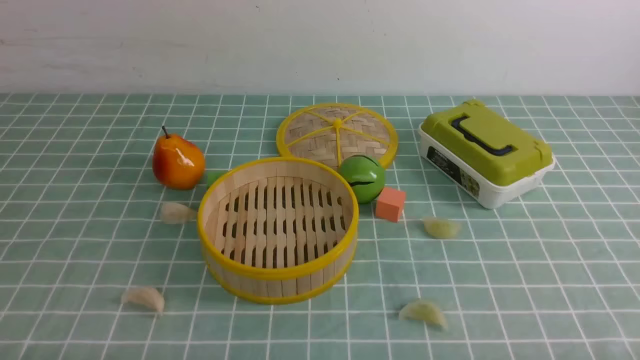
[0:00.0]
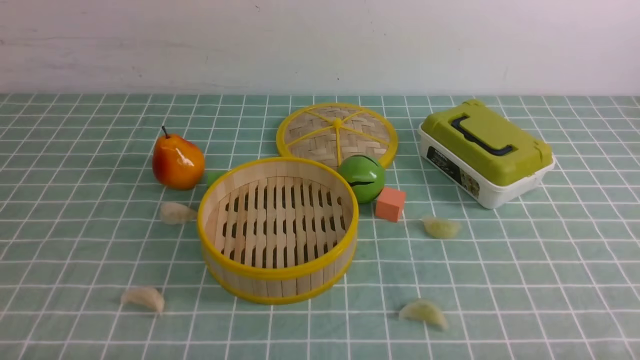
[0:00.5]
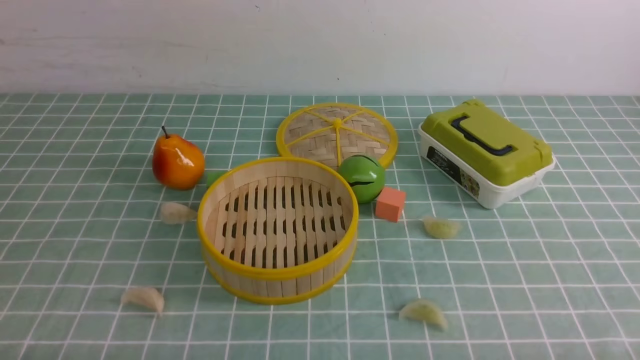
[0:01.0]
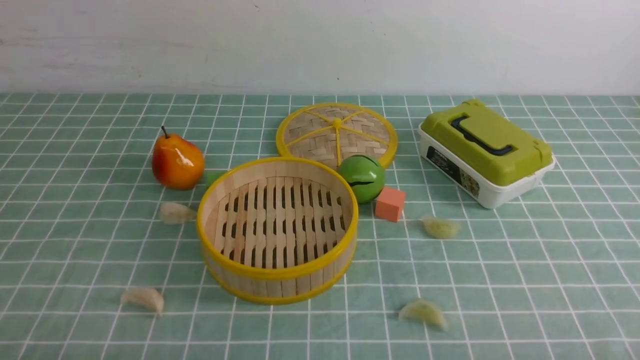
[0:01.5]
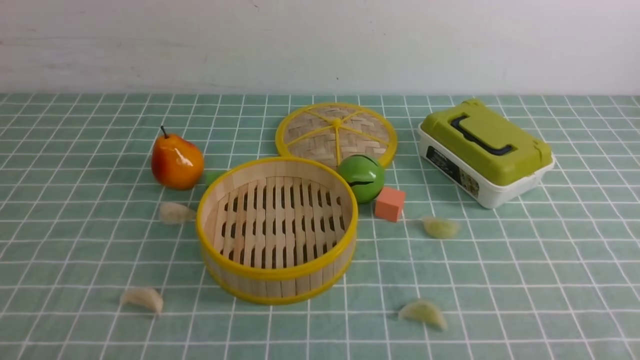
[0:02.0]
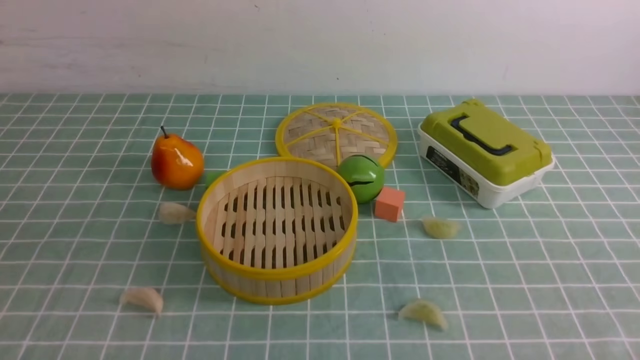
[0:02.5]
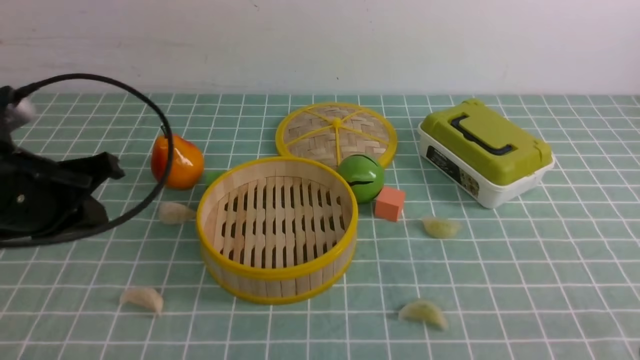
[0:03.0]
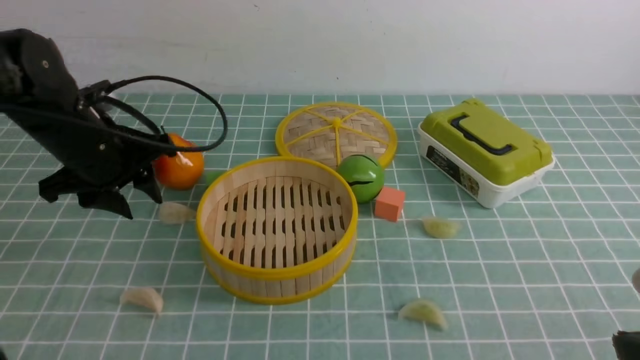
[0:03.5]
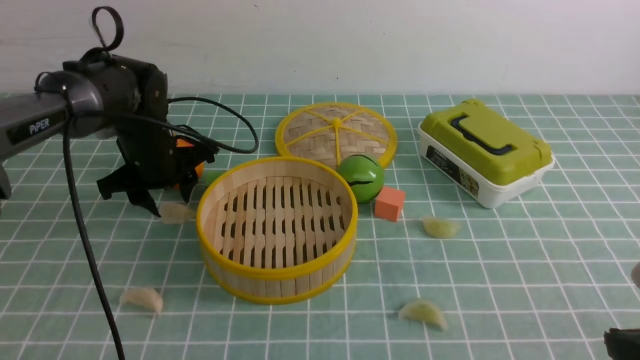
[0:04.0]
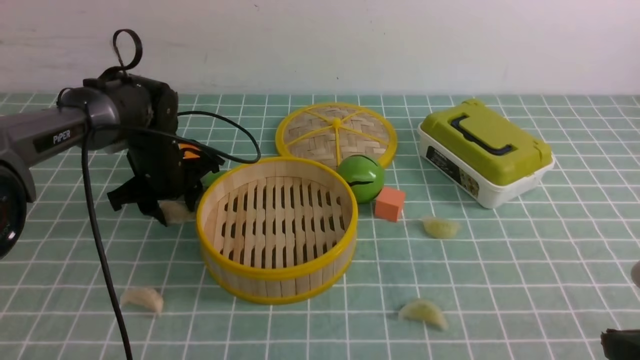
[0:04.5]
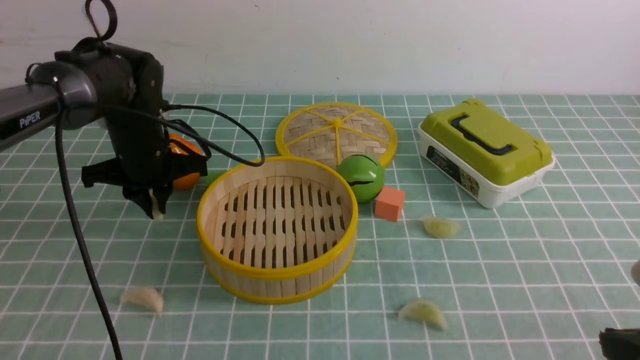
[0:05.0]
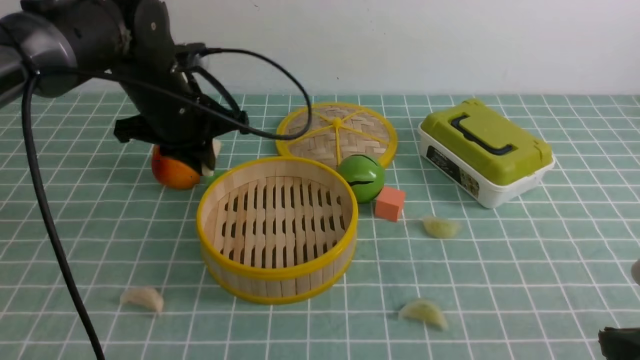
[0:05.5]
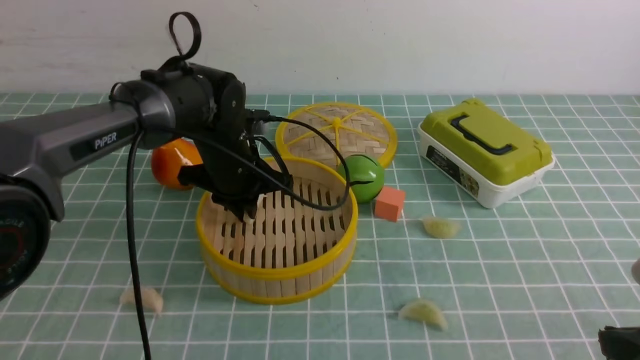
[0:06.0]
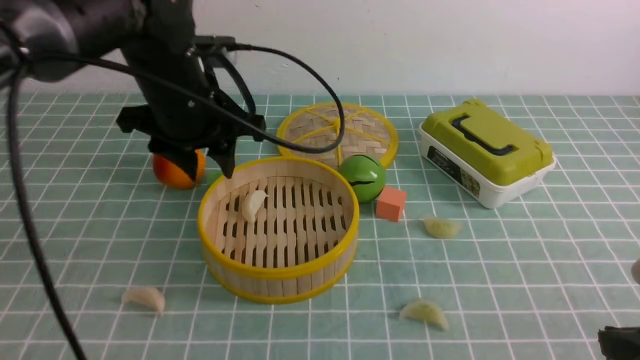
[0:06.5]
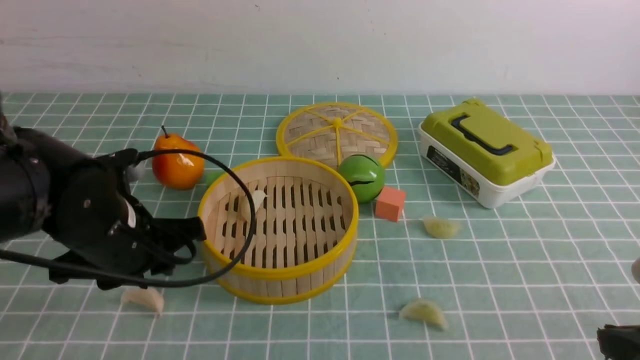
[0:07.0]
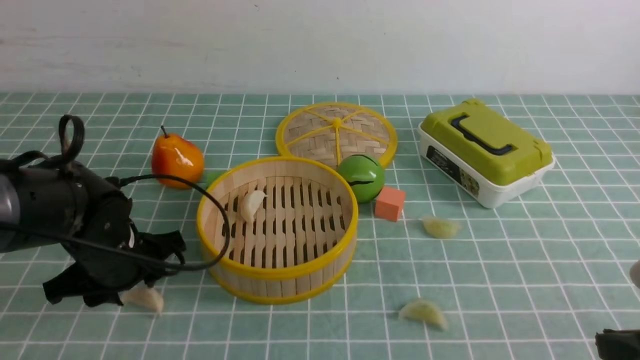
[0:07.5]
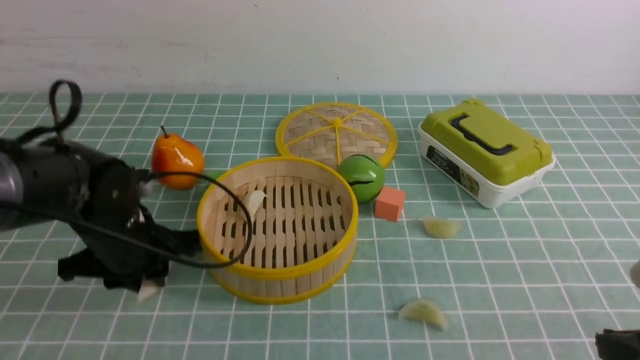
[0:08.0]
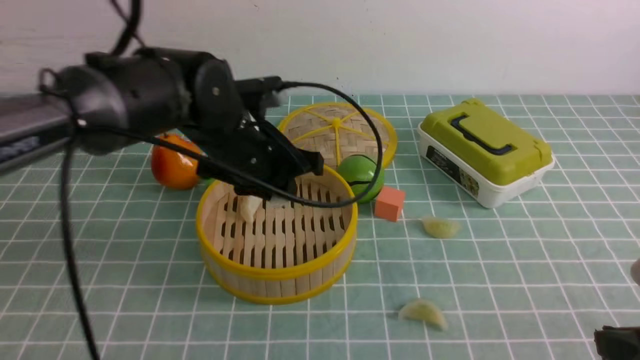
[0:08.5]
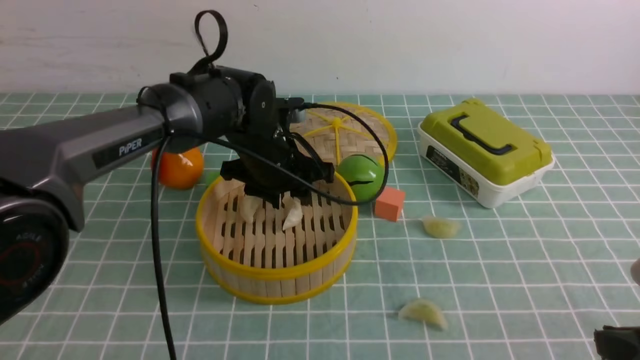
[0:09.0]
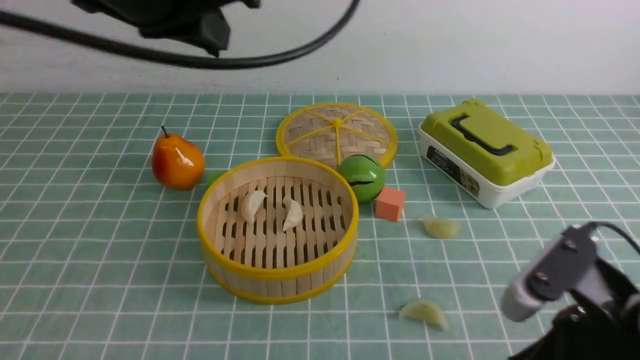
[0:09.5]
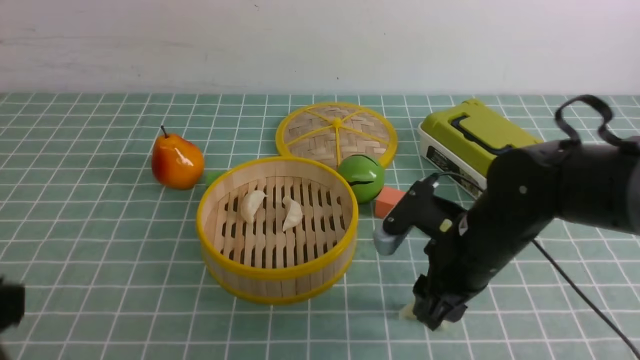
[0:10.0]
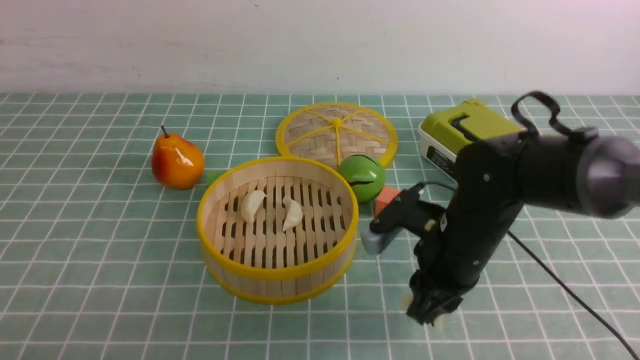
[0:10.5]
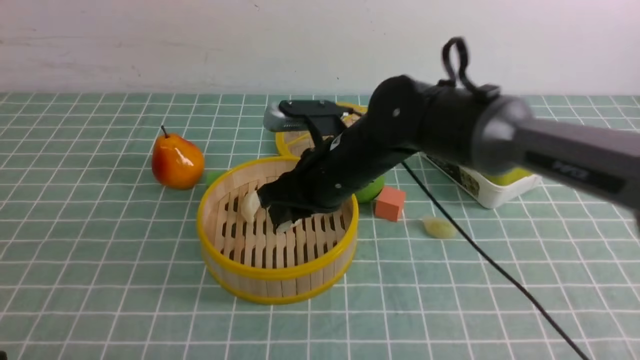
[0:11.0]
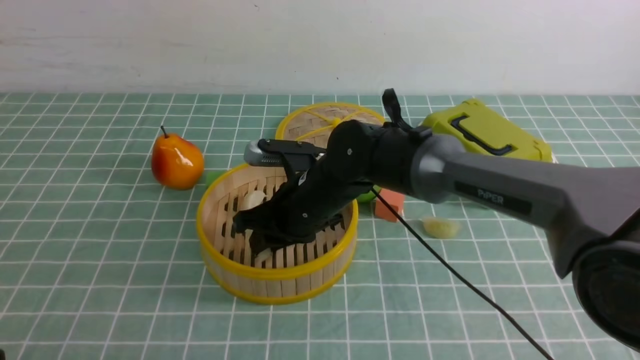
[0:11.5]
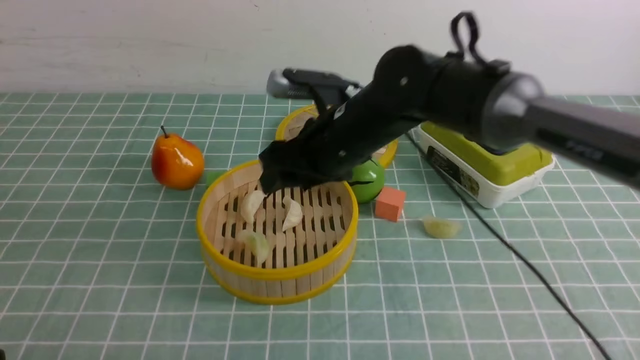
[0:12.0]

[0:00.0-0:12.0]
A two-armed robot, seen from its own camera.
Task of the whole recording: put the dumplings into the steamer on the table with the blue tablecloth.
Step, 0:00.0 to 0:04.5: use the left arm to grab a dumpling.
Step, 0:05.0 to 0:06.0: use the left arm to put the dumpling into the steamer.
Step, 0:06.5 to 0:07.5: use the left arm to grab a dumpling.
Step, 0:08.0 to 0:09.0: use the left arm to put the dumpling into the steamer.
Step, 0:09.5 to 0:10.0: use the right arm to grab a dumpling.
Step, 0:10.5 to 0:11.5: use the right arm to put the dumpling into the steamer.
0:02.0 to 0:04.0: The right gripper goes about 10 cm forward, and closes, while the left gripper moves forward, approximately 40 cm, and opens its fingers.
0:04.0 to 0:06.0: The left gripper shifts about 10 cm to the right, and closes up.
0:06.0 to 0:08.0: The left gripper travels backward and to the left by approximately 15 cm, and opens, then closes again.
0:08.0 to 0:10.0: The left gripper shifts roughly 30 cm backward and upward, and closes its fingers, while the right gripper heads forward and to the left, covering some 20 cm, and opens.
0:10.0 to 0:12.0: The left gripper heads downward, covering about 10 cm, while the right gripper shifts some 15 cm forward, to the left and upward, and closes, then reopens.

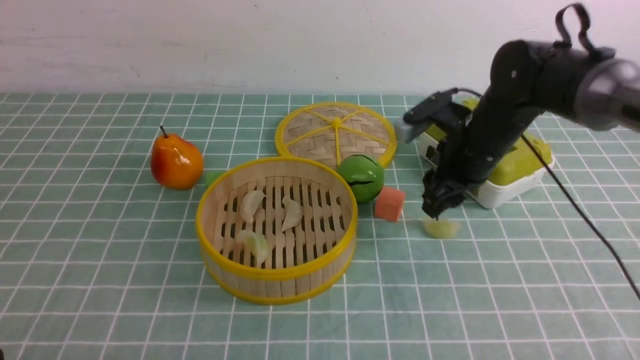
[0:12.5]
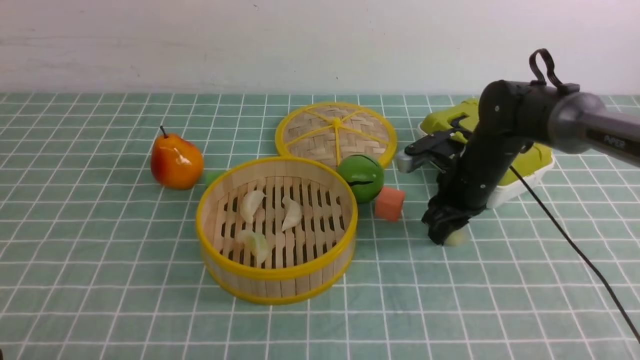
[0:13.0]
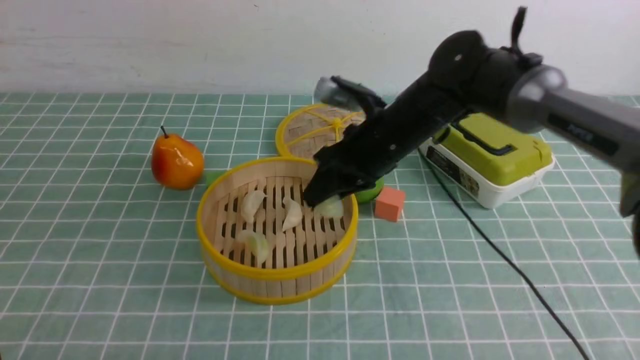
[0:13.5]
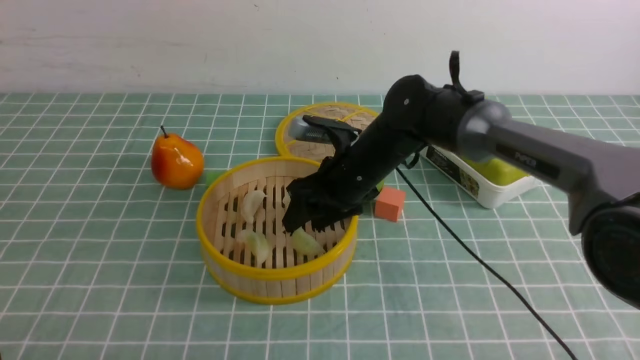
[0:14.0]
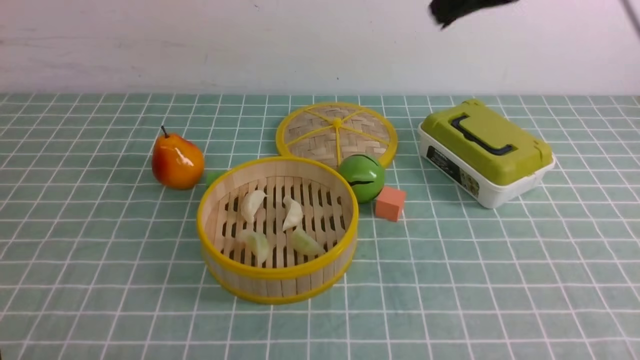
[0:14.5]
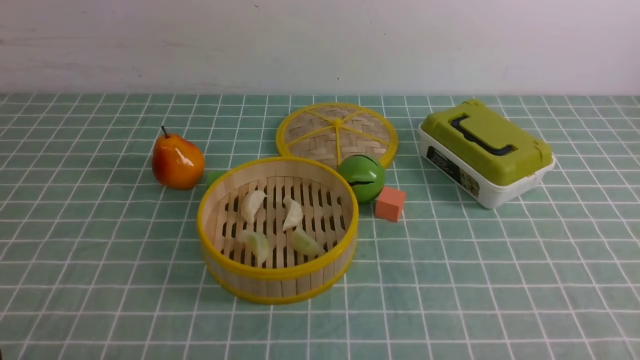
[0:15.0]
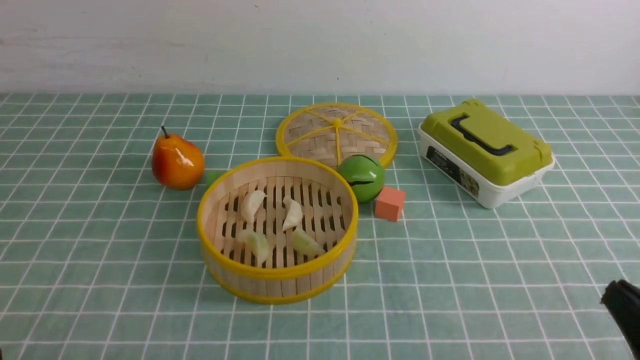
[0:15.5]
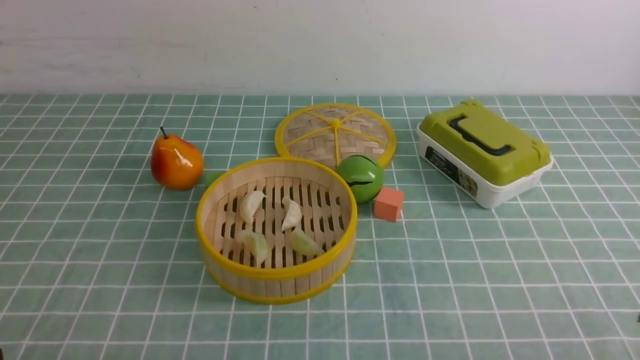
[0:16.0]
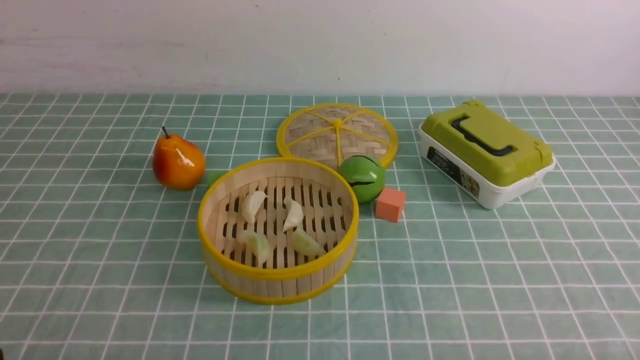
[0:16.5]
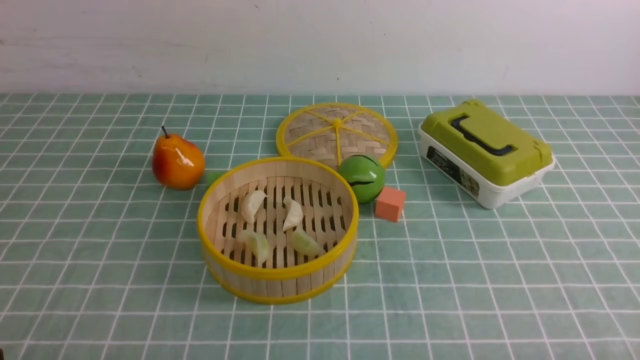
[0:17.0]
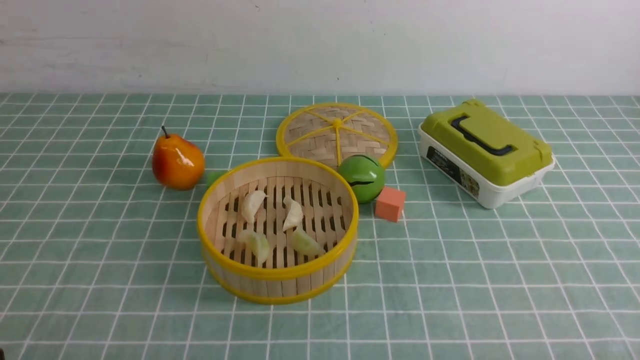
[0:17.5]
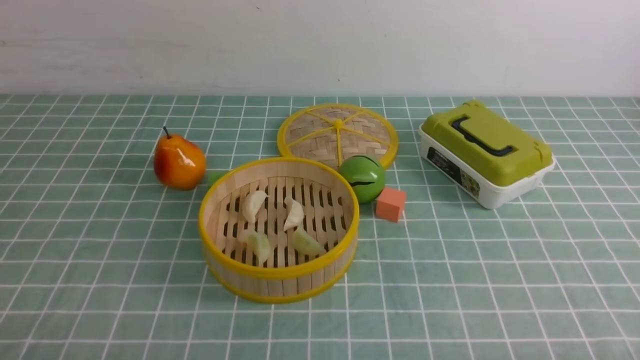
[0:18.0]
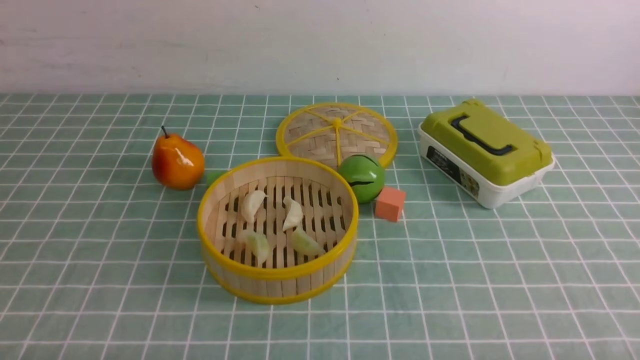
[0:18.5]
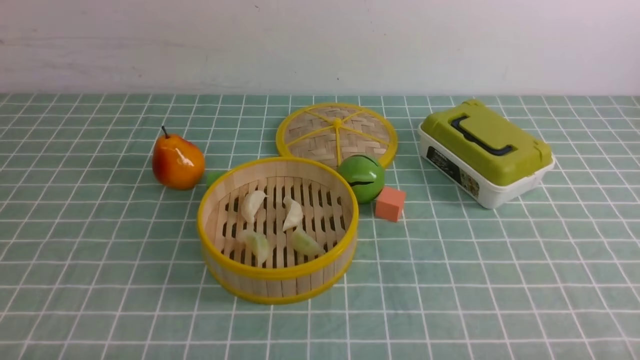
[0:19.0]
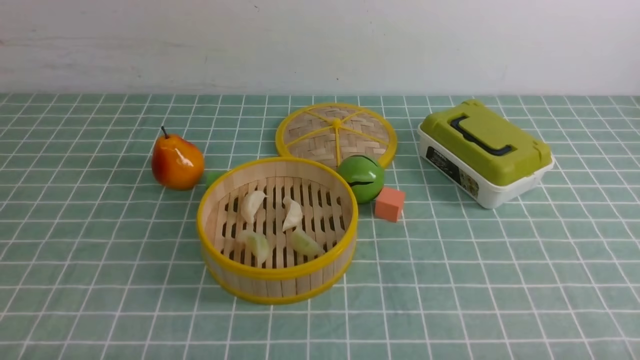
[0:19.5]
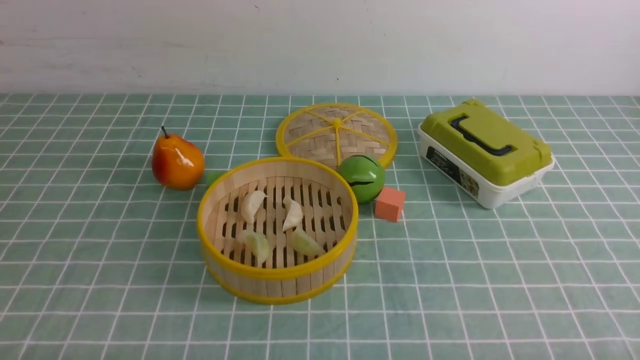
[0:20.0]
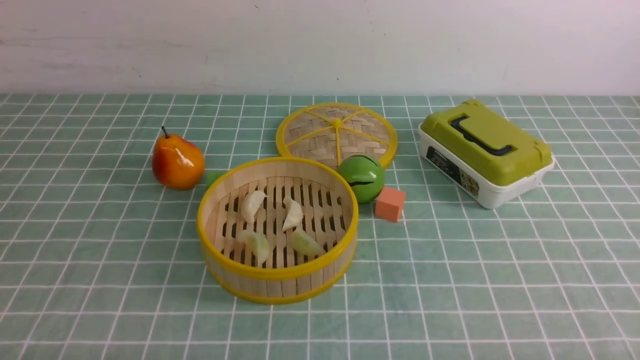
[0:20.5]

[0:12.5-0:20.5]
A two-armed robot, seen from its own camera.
Task of the whole recording: put the dumplings into the steamer on the table with the blue tablecloth.
Step, 0:13.0 to 0:14.0: use the right arm to put the dumpling into the steamer.
0:12.5 to 0:14.5: The right gripper goes some 25 cm upward, and closes its fingers.
0:14.5 to 0:16.5: The right gripper heads downward, backward and to the right, covering some 40 cm.
0:18.5 to 0:20.5: Both grippers stay about where they are.
